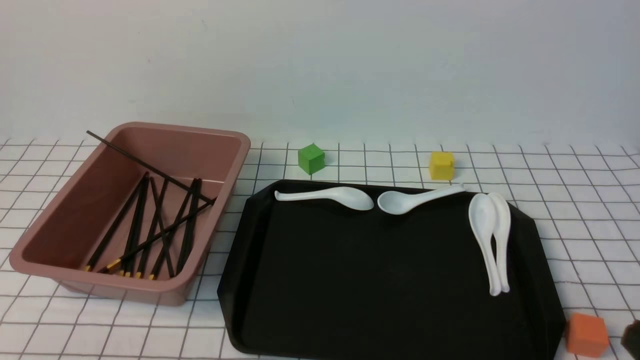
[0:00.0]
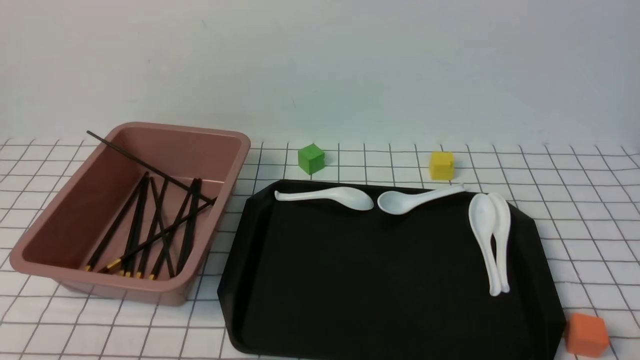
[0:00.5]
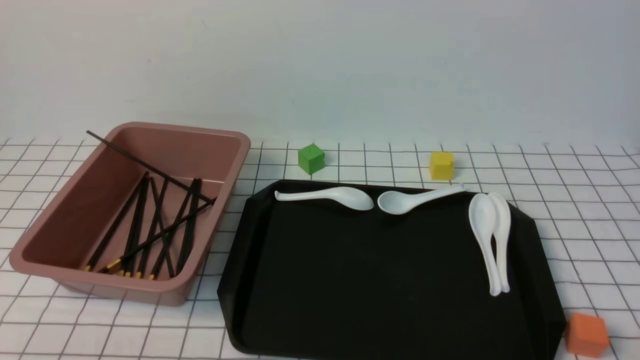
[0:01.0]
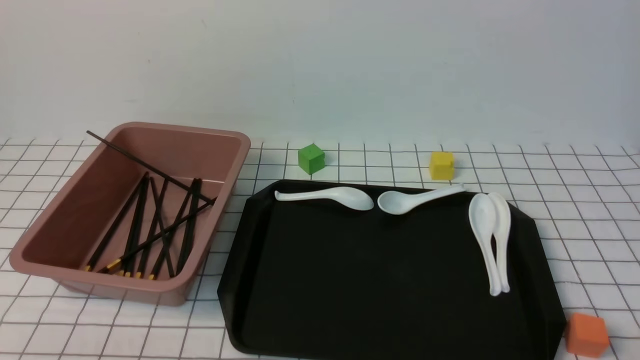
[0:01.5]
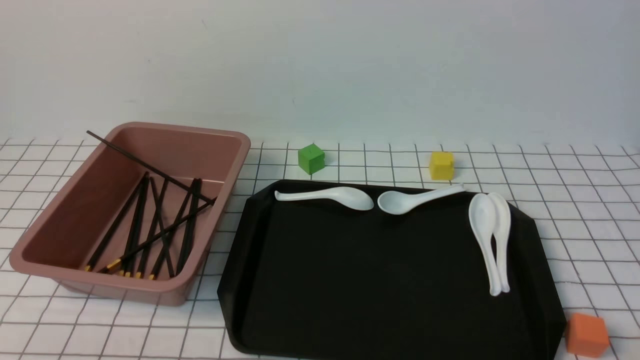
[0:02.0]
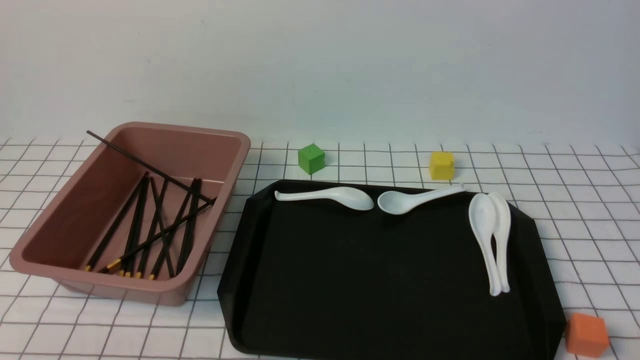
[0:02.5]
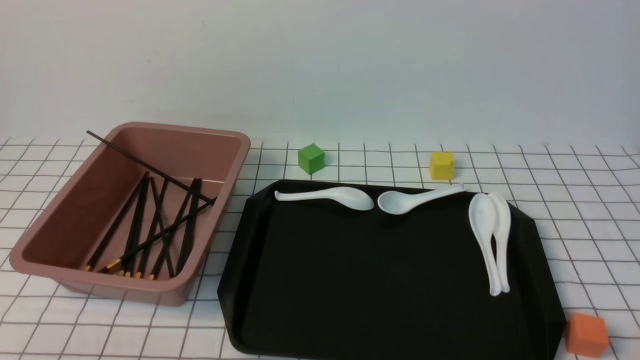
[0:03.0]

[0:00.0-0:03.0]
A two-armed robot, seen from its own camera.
0:01.5 to 0:03.0: Both grippers stay put.

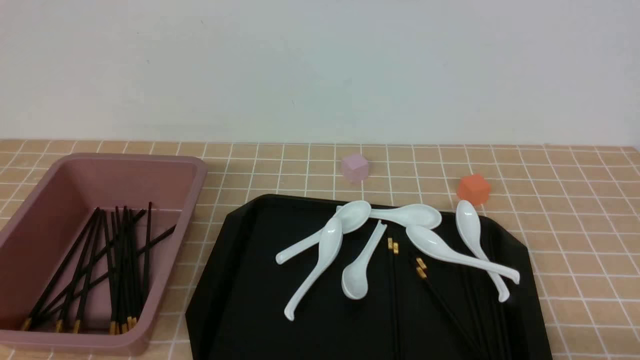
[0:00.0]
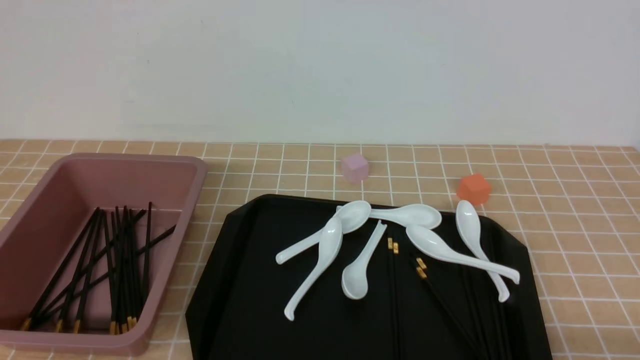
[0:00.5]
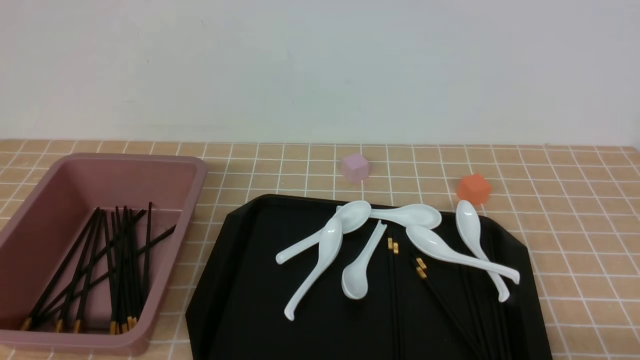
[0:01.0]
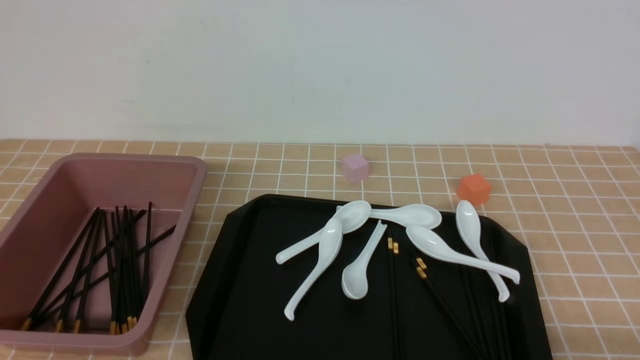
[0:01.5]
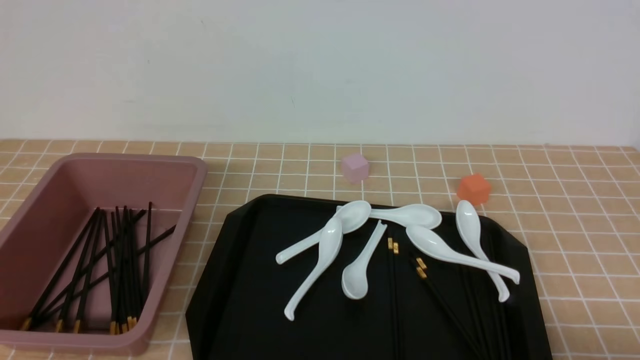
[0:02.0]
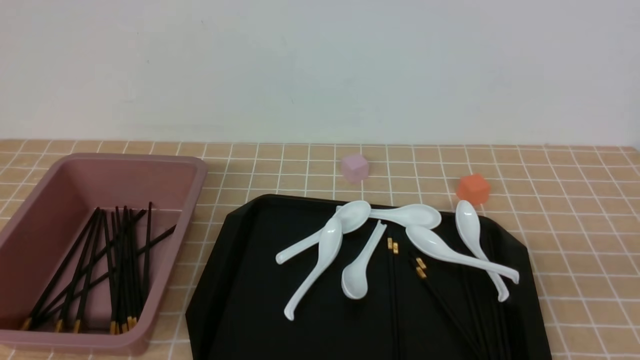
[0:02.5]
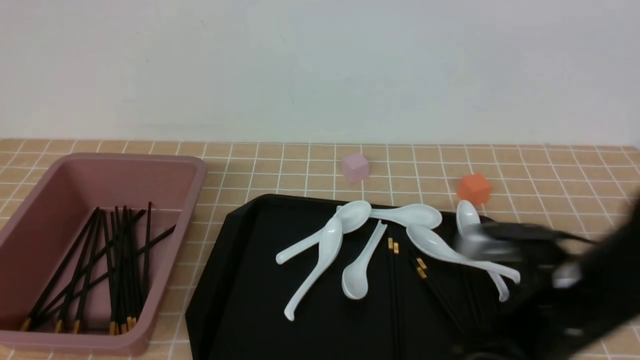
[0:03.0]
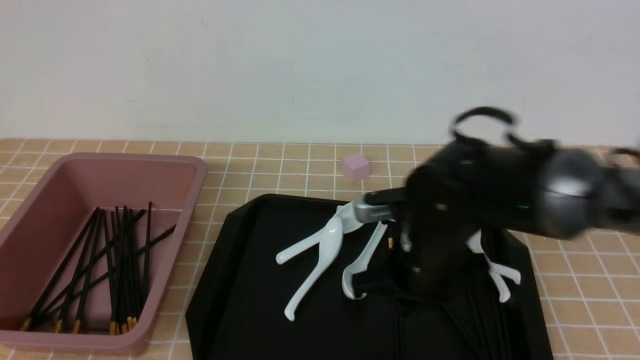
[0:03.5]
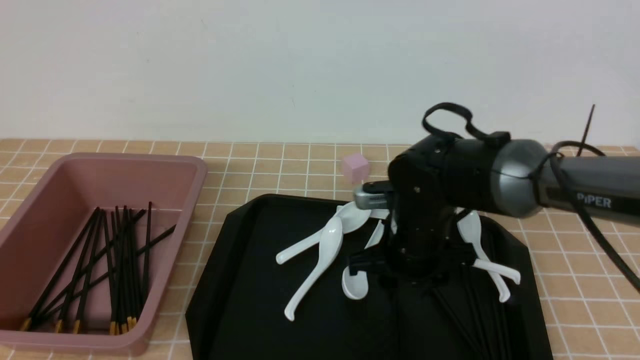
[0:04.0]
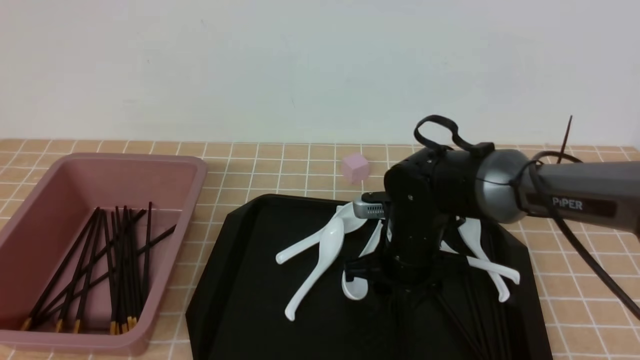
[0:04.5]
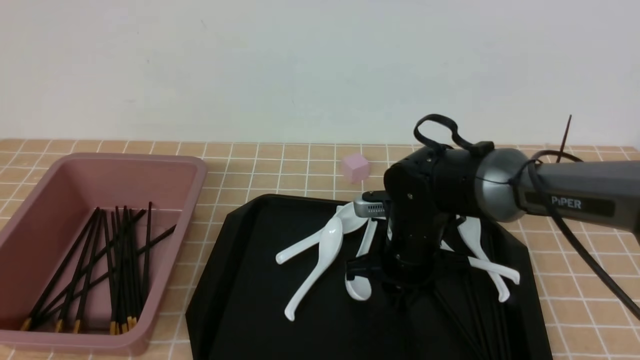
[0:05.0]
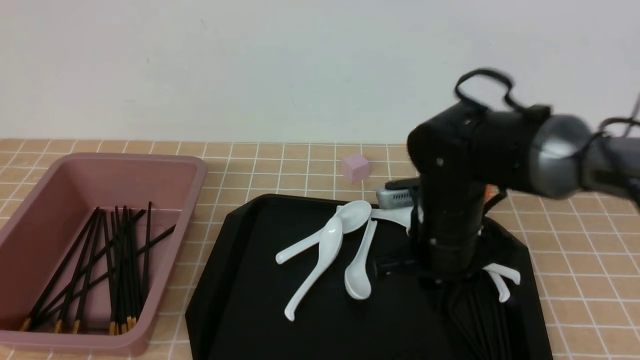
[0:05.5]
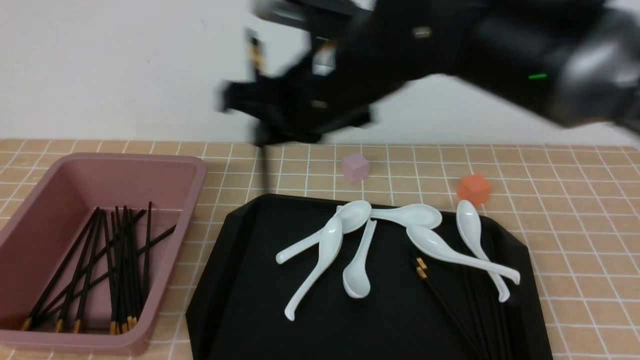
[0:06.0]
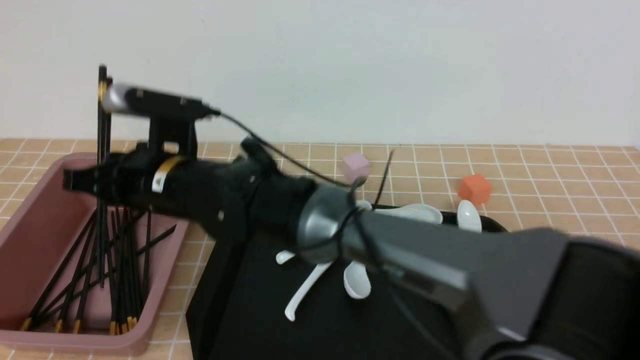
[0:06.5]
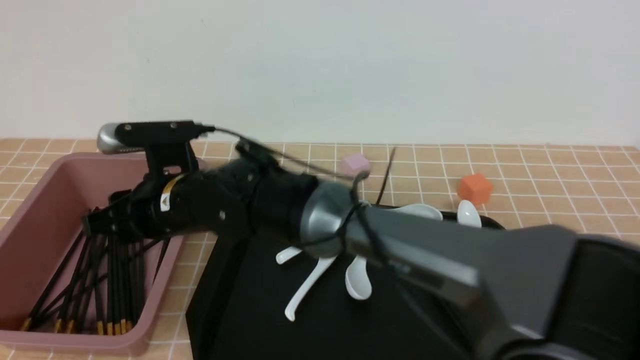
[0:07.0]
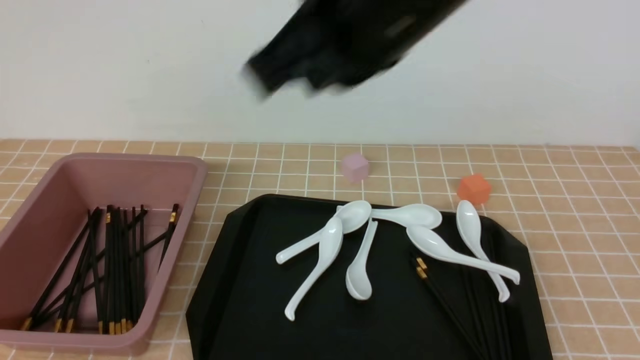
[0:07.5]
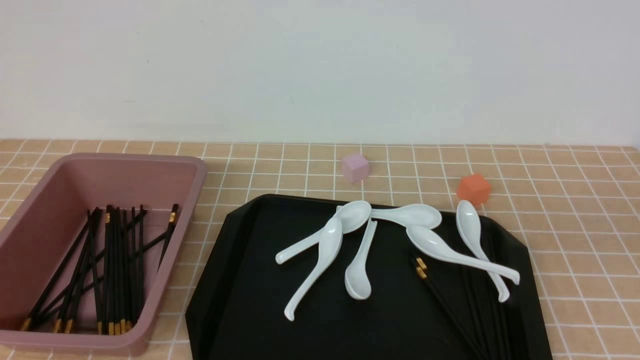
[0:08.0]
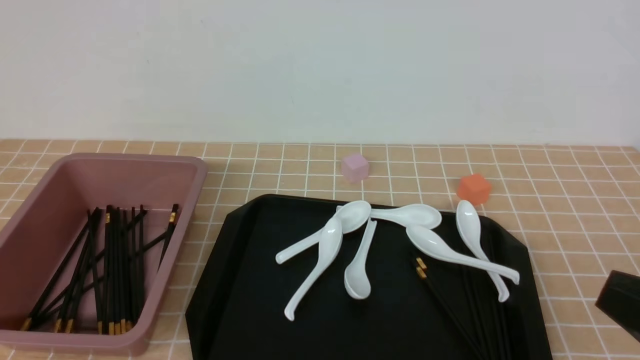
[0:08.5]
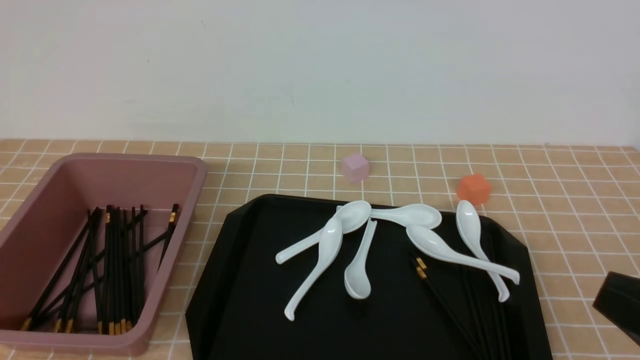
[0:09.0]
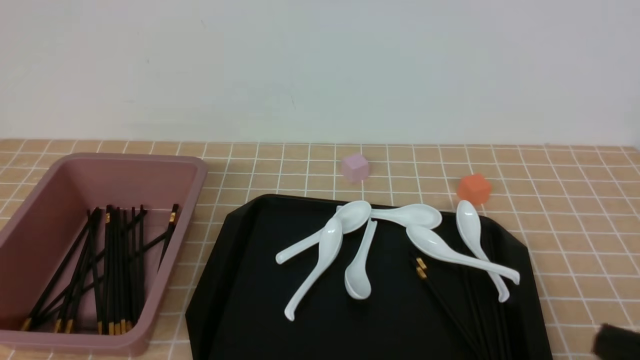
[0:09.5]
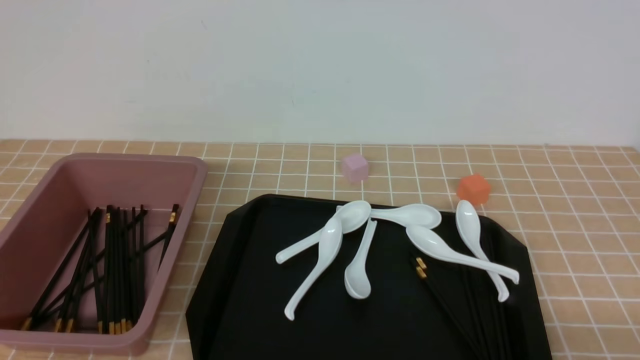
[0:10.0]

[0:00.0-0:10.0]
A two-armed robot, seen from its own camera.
Step, 0:00.0 to 0:05.5: use the right arm to grab a pair of chopsticks.
Step, 0:06.0 to 0:07.0: use the right arm to put the chopsticks into the lunch box.
0:02.0 to 0:04.0: The right gripper travels forward and to the left by roughly 35 cm, and closes, then reopens.
0:04.0 to 0:06.0: The right gripper goes approximately 20 cm upward and to the left, and closes.
0:06.0 to 0:08.0: The right gripper is displaced to the right and backward by approximately 35 cm, and closes.
0:08.0 to 0:10.0: The right gripper moves downward, roughly 25 cm.

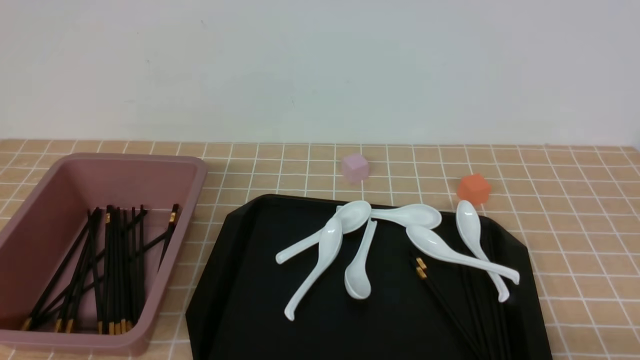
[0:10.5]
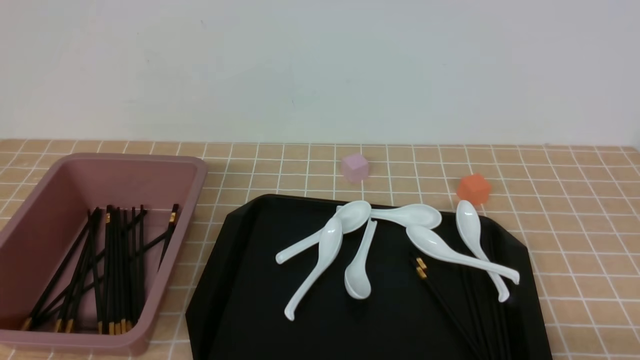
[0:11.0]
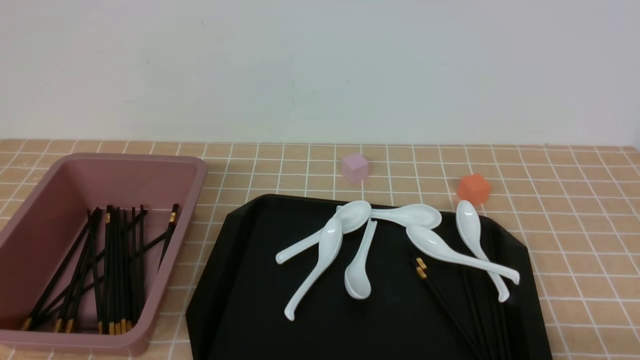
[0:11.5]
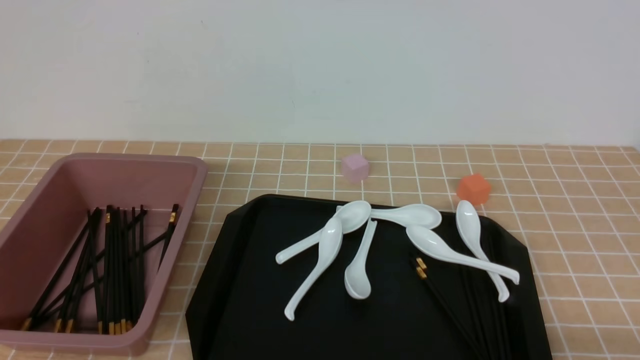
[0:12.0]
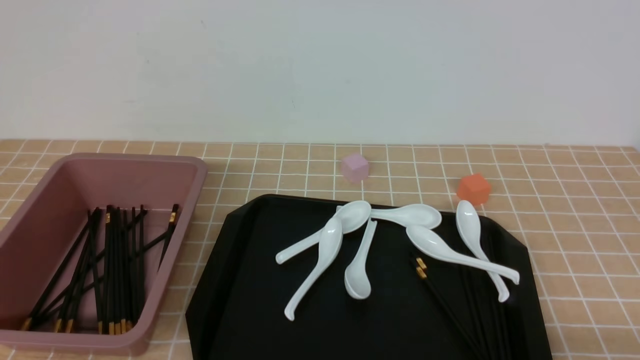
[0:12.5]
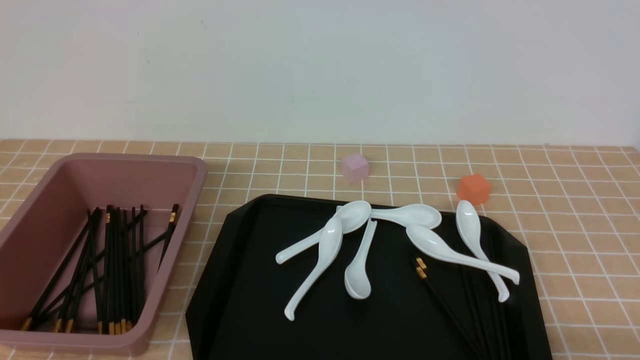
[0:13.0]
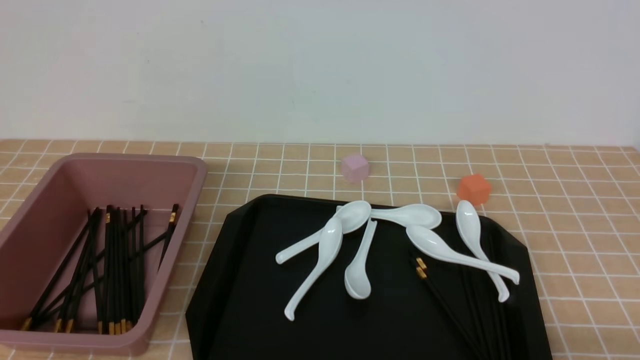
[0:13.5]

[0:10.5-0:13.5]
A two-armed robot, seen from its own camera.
0:10.5 to 0:13.5: The two grippers keep their place.
